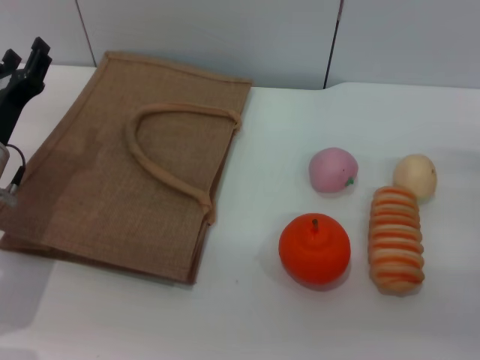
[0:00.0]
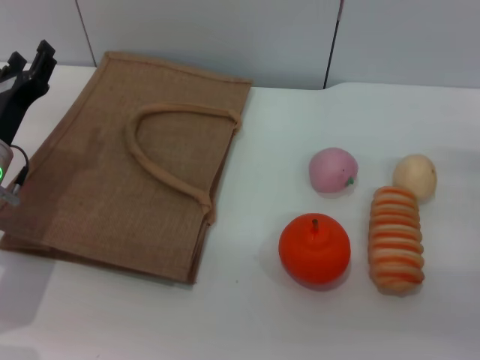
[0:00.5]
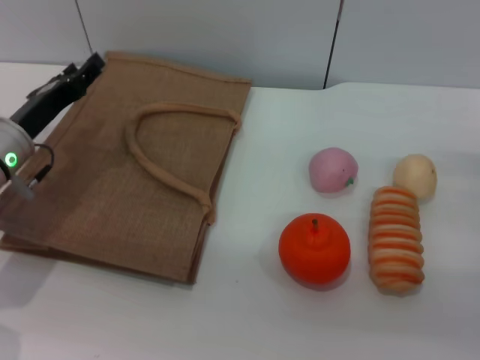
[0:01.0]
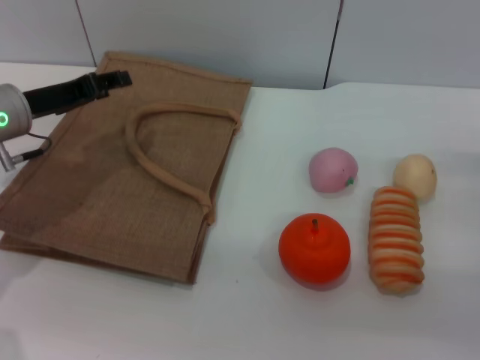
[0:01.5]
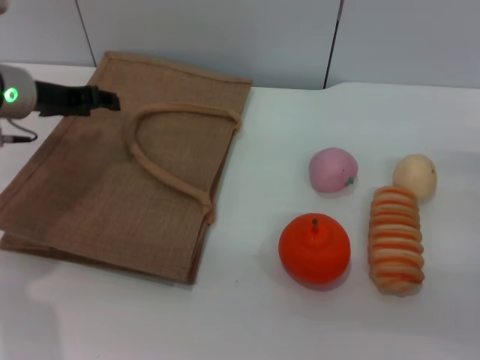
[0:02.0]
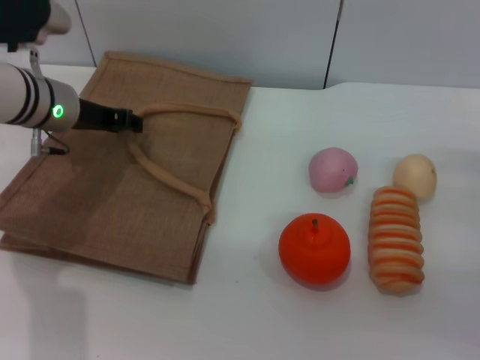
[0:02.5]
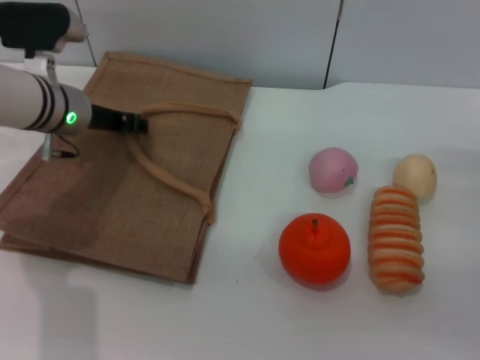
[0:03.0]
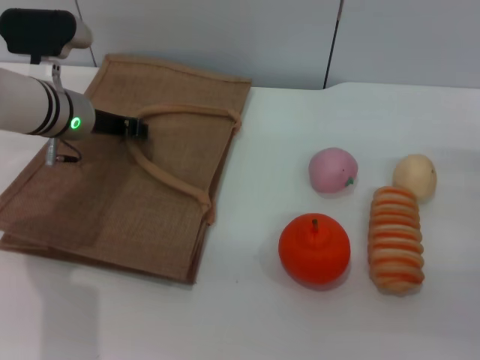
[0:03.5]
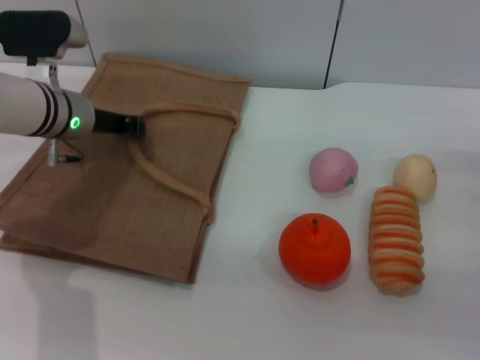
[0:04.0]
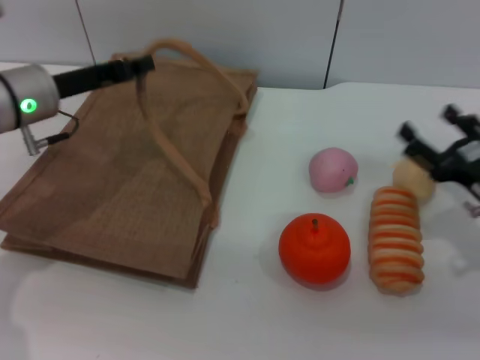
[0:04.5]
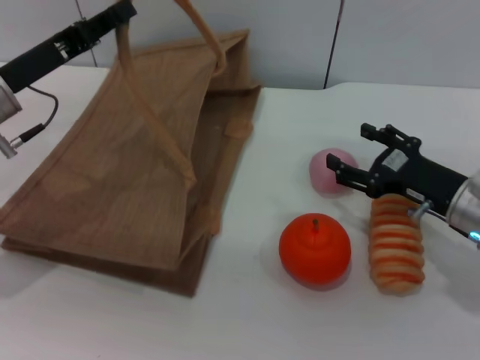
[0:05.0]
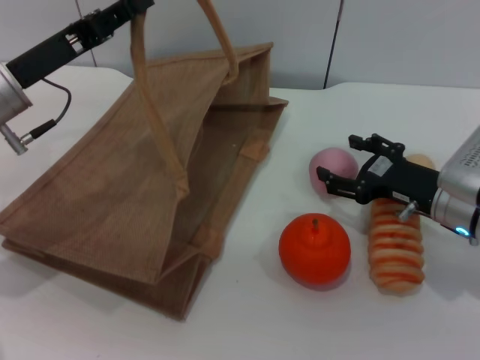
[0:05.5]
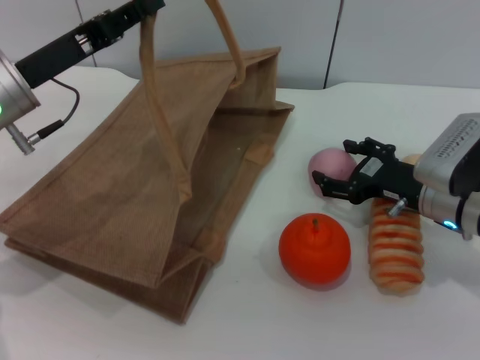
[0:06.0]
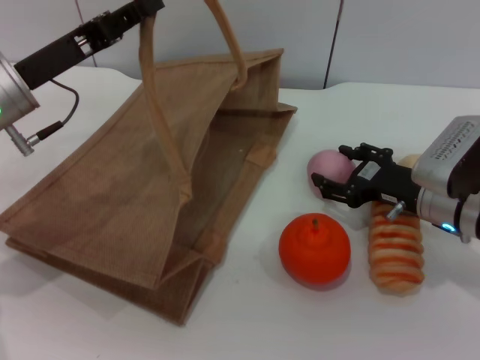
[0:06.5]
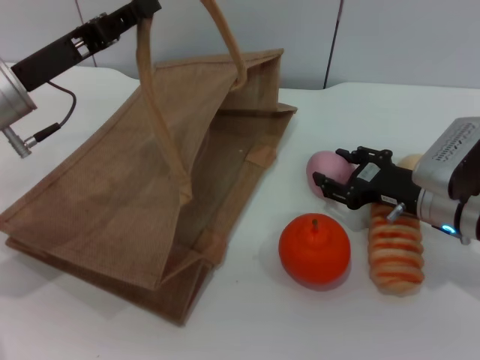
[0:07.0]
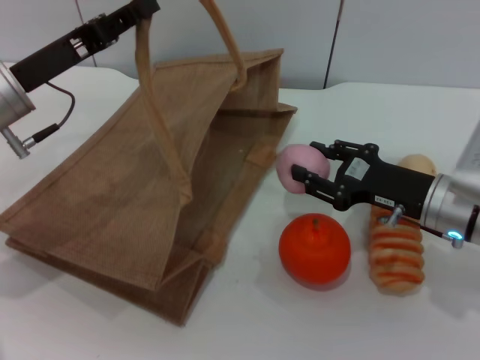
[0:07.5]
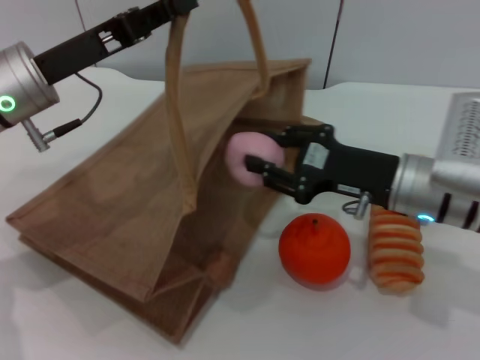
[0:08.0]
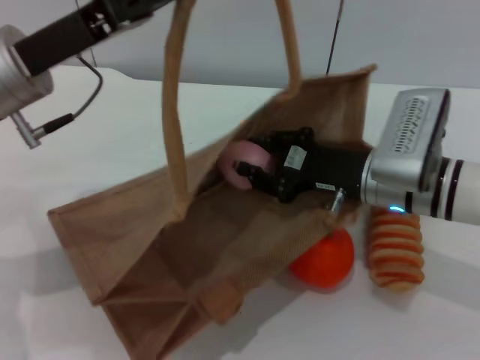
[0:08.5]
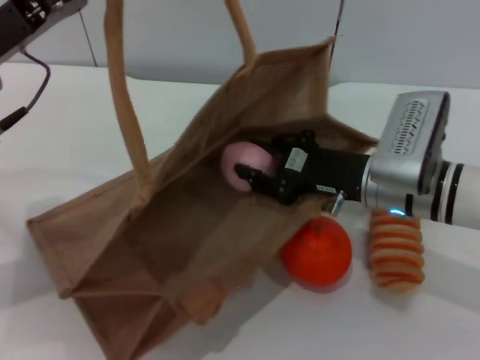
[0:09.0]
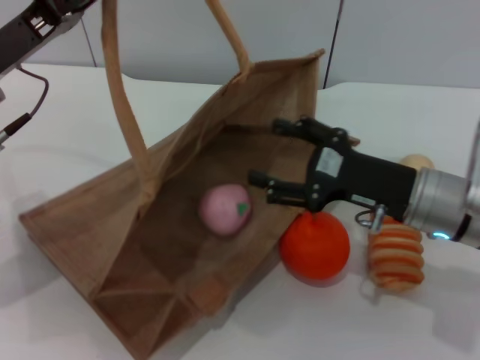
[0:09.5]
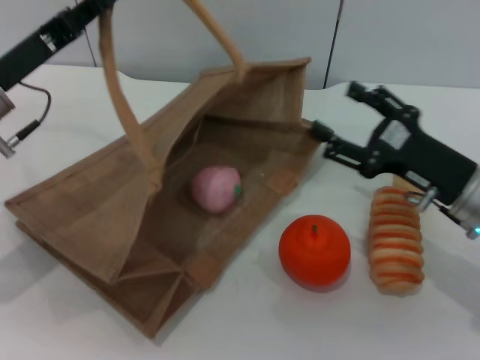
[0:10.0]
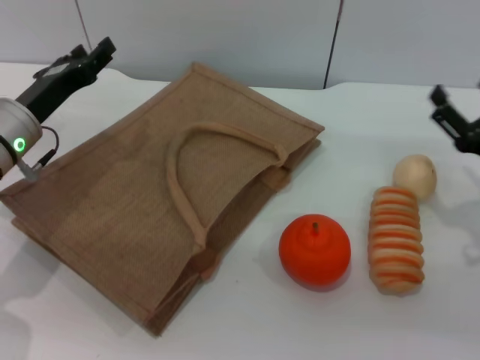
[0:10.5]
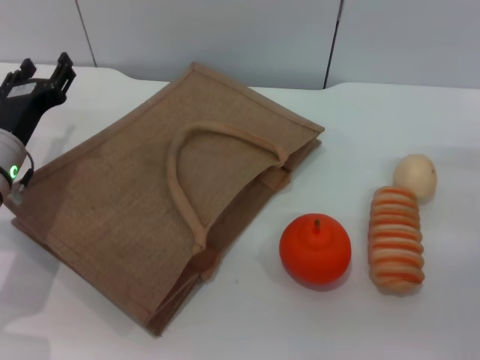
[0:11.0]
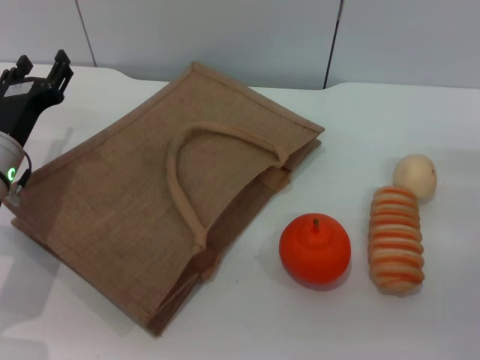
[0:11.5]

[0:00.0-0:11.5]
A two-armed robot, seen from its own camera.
Task of the whole recording: pick up the peach from the table and place it in the brown handbag.
Step, 0:00.0 to 0:04.0: Lift the woven bag with the left gripper to open it.
Step, 0:04.5 to 0:07.0: Pick up the peach with the right gripper.
Step, 0:08.0 to 0:09.5: Place the peach into the woven bag with the right gripper.
Step, 0:10.0 to 0:10.5: Lower the woven bag with the left gripper to close it.
0:00.0 to 0:02.0: The left gripper shifts approximately 10 cm upward and forward.
0:02.0 to 0:04.0: The left gripper moves roughly 5 cm, and closes up.
0:04.0 to 0:06.0: The right gripper goes about 10 cm to the left and forward; the left gripper moves backward, about 5 cm.
0:06.0 to 0:07.5: The right gripper closes its fingers.
0:07.5 to 0:09.5: The right gripper opens up.
0:09.5 to 0:11.5: The right gripper goes some 10 cm to the right, while the left gripper shifts approximately 10 cm downward, and opens its fingers.

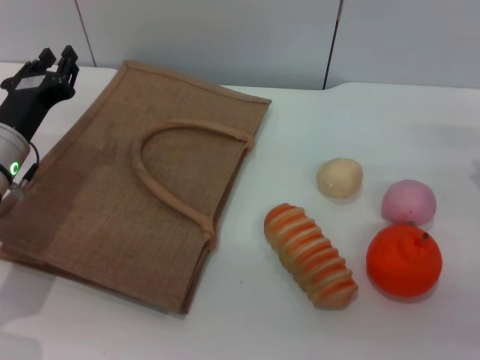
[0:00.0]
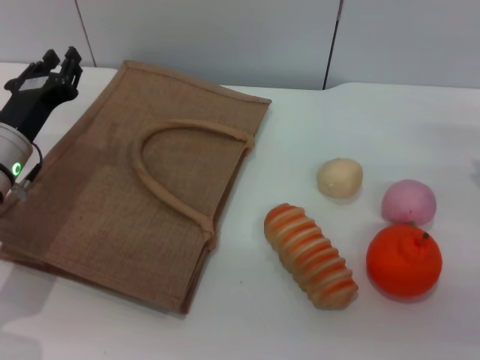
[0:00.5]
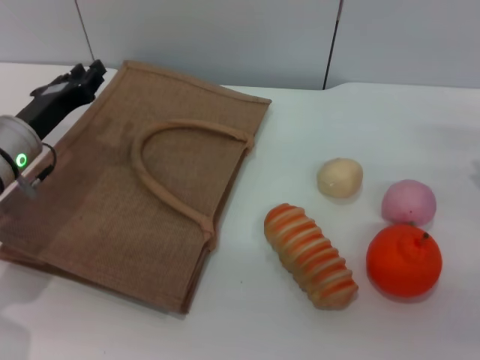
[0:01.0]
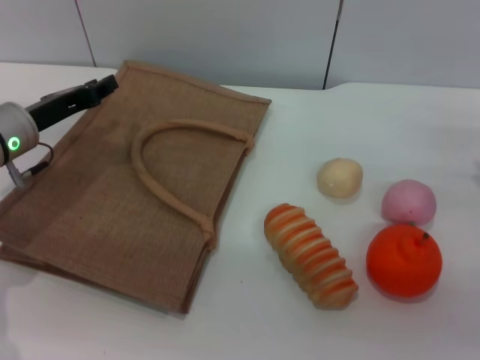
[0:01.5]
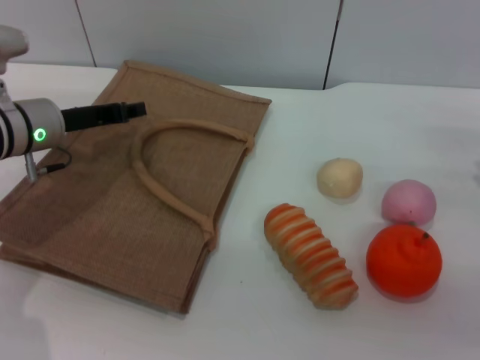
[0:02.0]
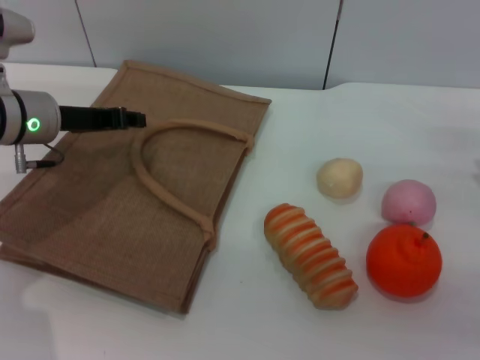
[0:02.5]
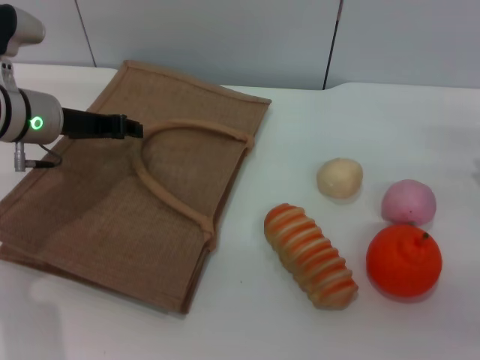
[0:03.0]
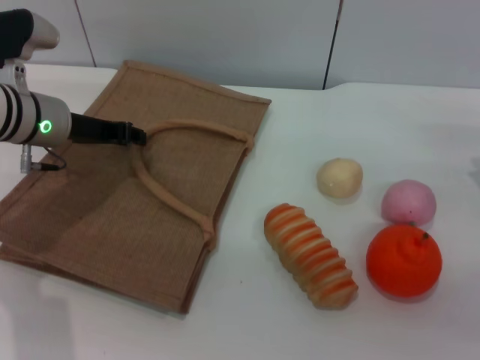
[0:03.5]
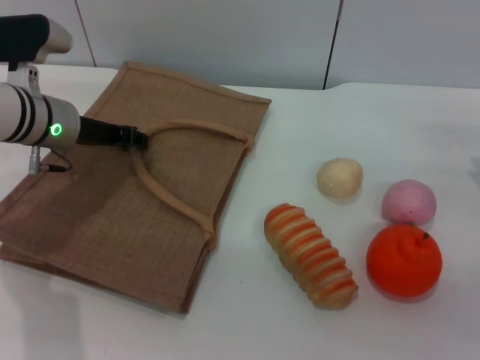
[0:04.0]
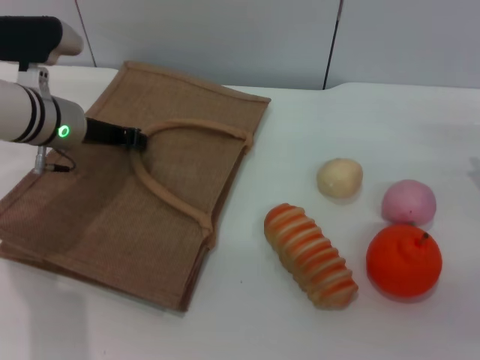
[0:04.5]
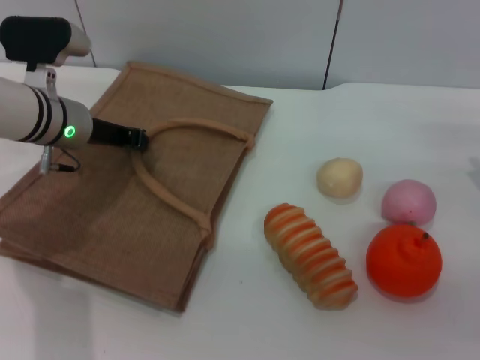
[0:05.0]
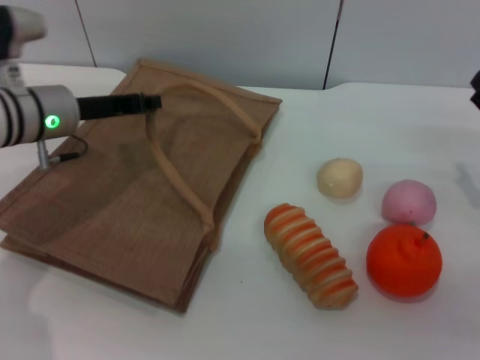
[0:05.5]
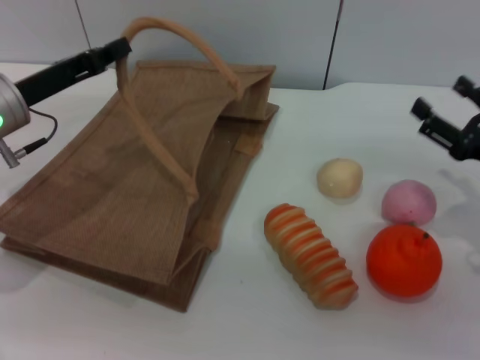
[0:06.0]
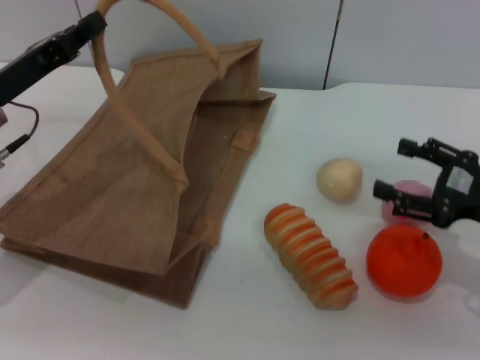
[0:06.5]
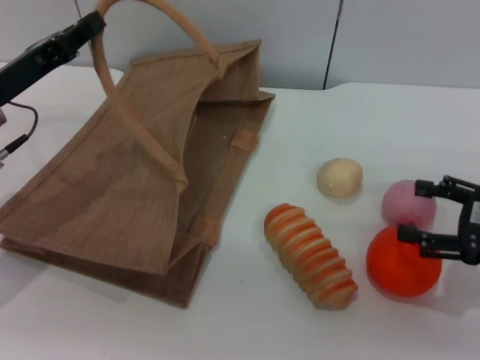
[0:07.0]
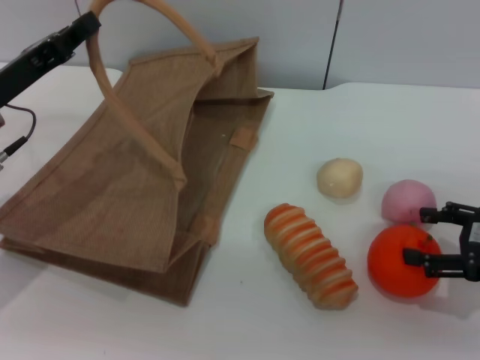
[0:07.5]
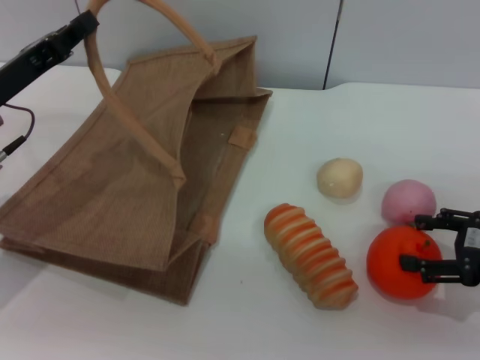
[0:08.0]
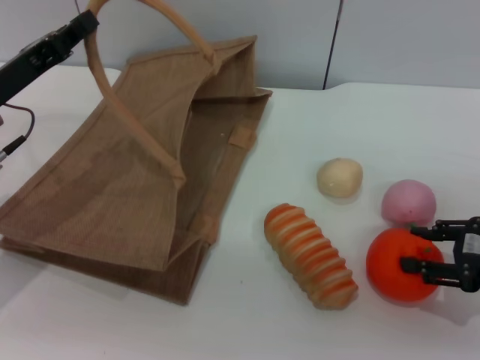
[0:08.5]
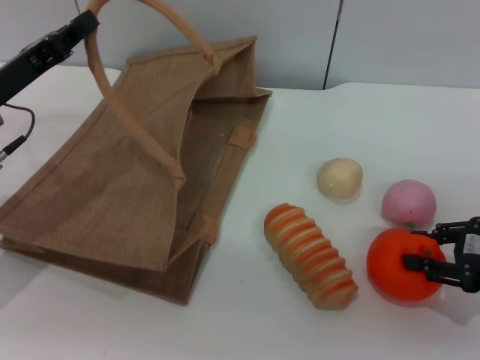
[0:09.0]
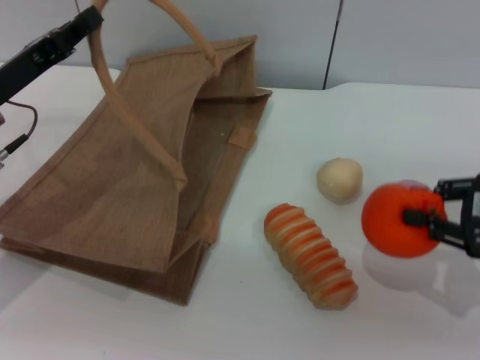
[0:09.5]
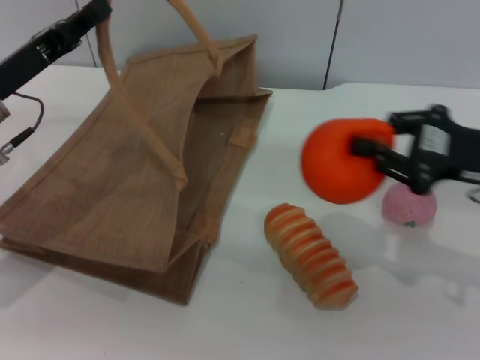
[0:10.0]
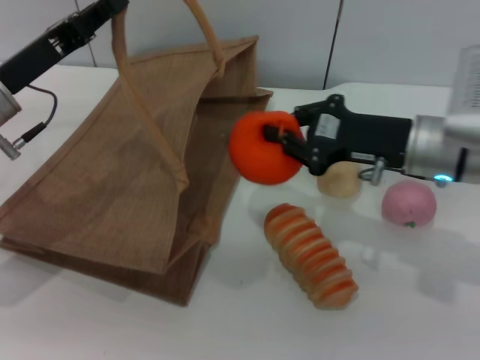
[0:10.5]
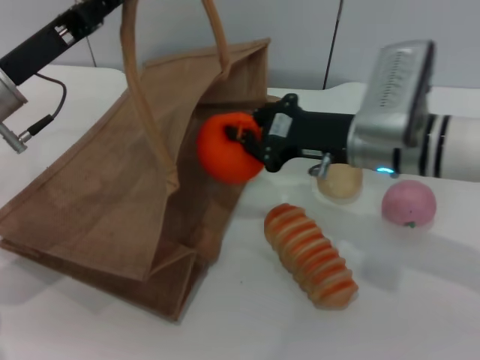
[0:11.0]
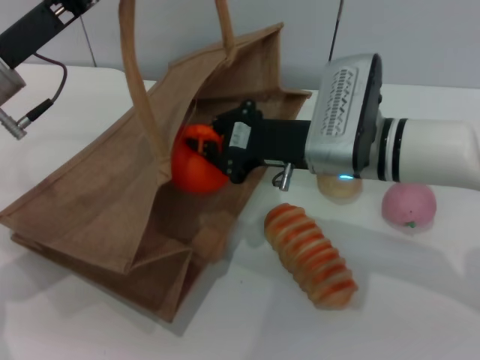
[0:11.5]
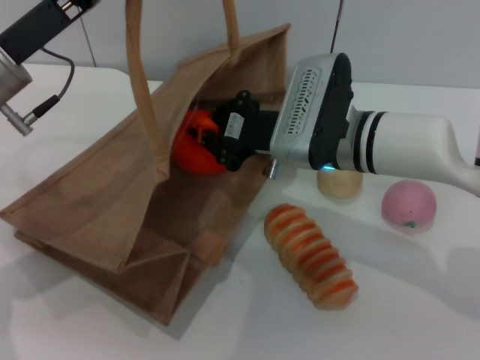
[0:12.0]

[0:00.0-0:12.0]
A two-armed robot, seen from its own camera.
Task of the whole recording: pick up the orange from the table and place it in the brown handbag.
Step, 0:00.0 to 0:05.5: Lift the woven bag with the left gripper to open it.
Step, 0:06.0 to 0:09.0: Pick up the orange with the right gripper.
0:00.0 to 0:02.0: The left gripper is displaced forward by roughly 5 cm.
0:02.0 to 0:04.0: The grippers stay close to where they were, moving slightly.
0:04.0 to 0:06.0: The left gripper changes place by about 5 cm, and closes.
0:08.0 to 0:10.0: The right gripper travels to the left and upward by some 10 cm, and closes.
0:10.0 to 0:12.0: The right gripper shifts some 20 cm to the left.

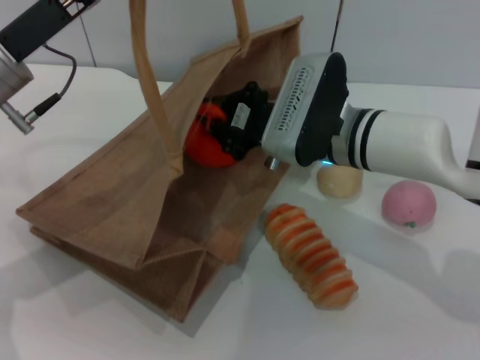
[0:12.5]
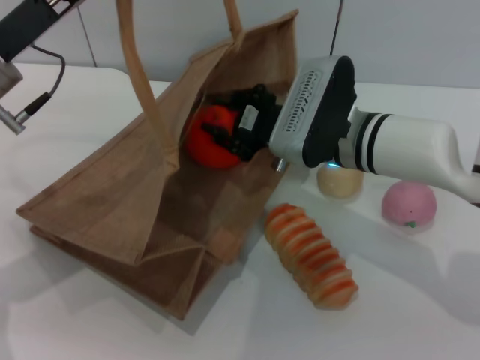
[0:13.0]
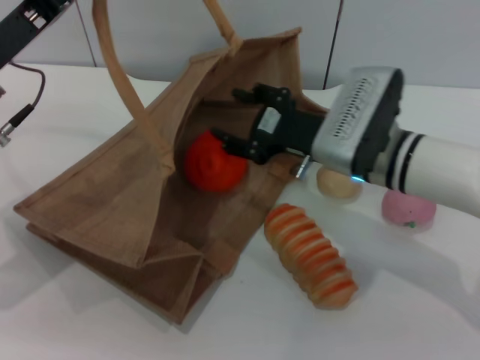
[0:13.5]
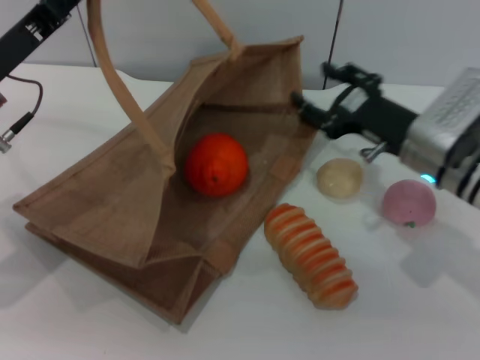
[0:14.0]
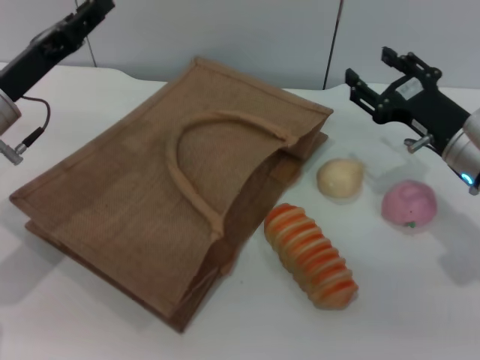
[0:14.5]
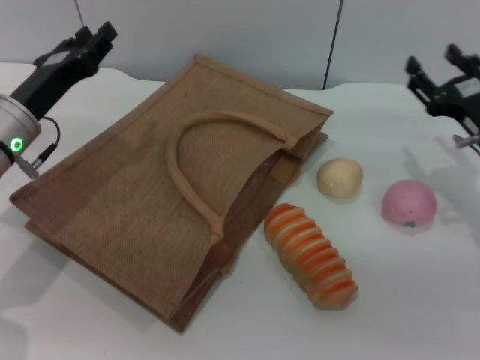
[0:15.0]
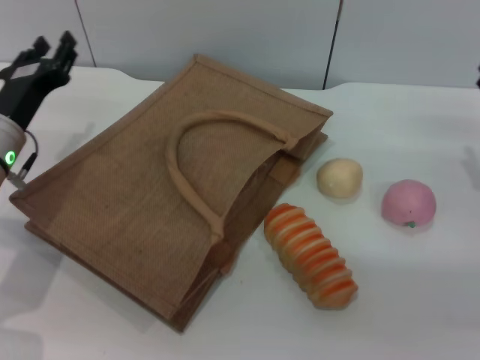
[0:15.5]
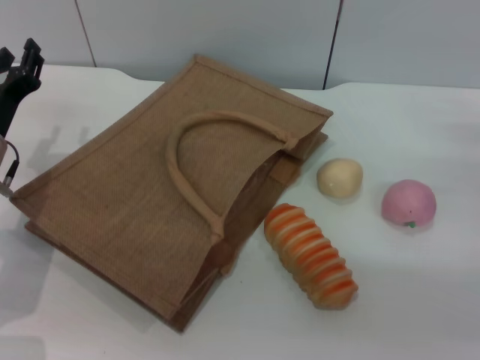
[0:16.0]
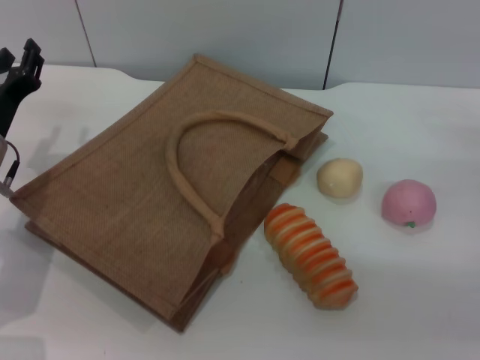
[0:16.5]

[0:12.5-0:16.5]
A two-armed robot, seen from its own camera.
Task of the whole recording: pick up the orange from the table and place it in the brown handbag.
Step, 0:14.0 to 0:15.0: Lower the woven bag with the left gripper to close it.
0:12.5 to 0:14.5: The right gripper moves to the right, roughly 15 cm, and opens up. Meanwhile the left gripper moves downward, approximately 5 cm, and opens up.
0:14.5 to 0:16.5: The right gripper travels to the right by approximately 10 cm; the left gripper heads downward, covering roughly 5 cm.
